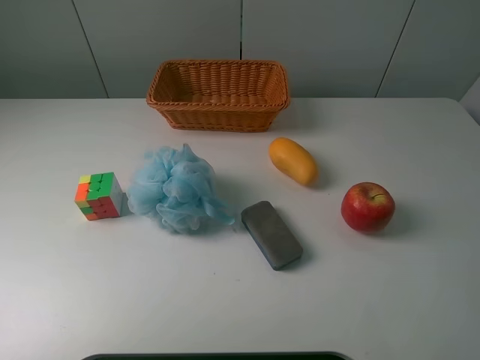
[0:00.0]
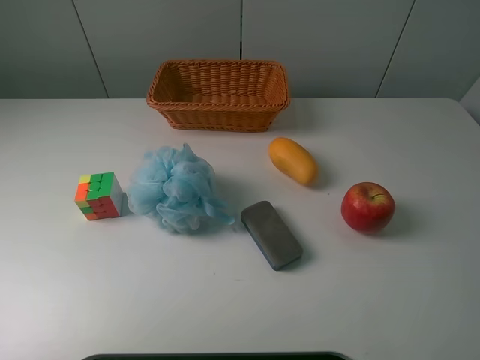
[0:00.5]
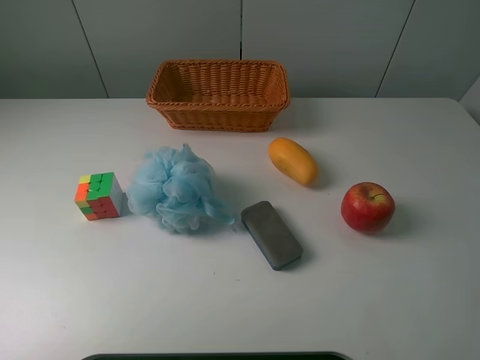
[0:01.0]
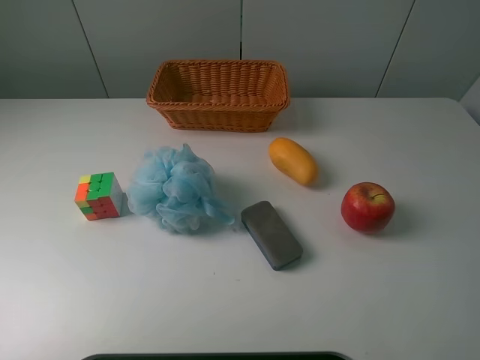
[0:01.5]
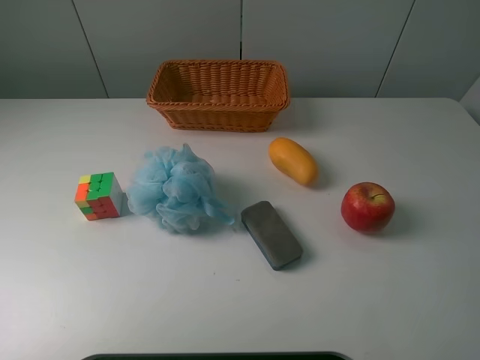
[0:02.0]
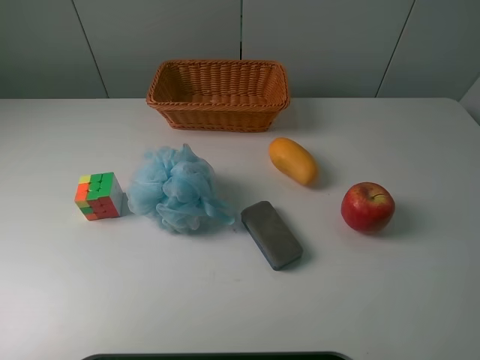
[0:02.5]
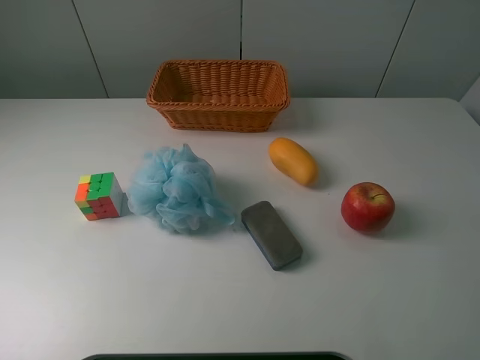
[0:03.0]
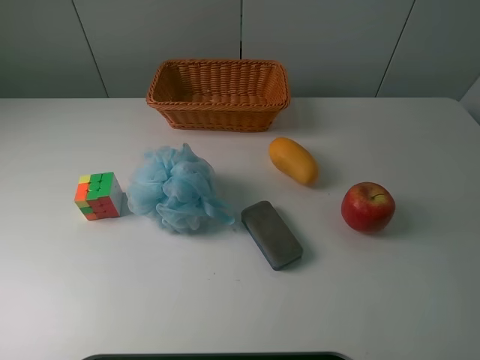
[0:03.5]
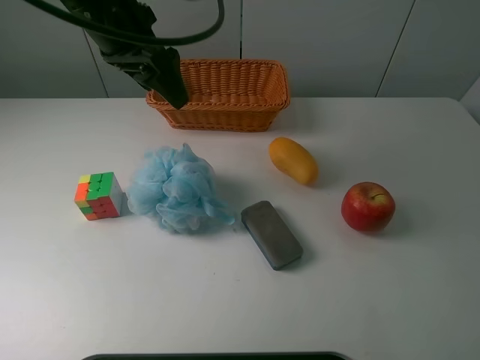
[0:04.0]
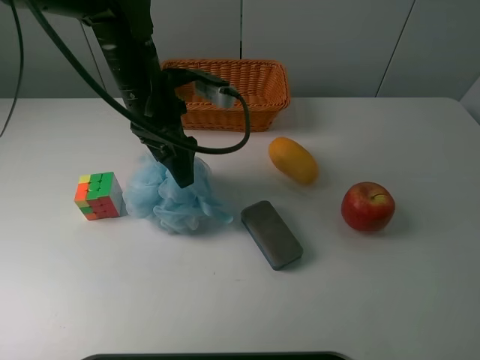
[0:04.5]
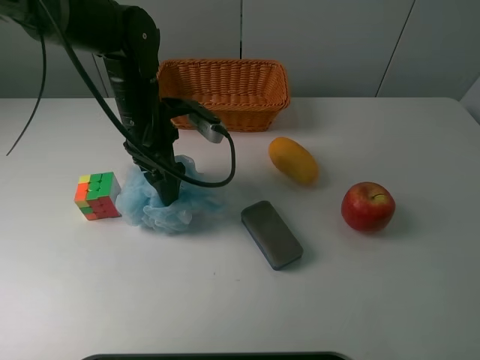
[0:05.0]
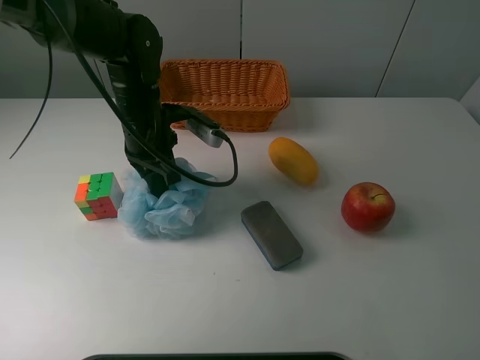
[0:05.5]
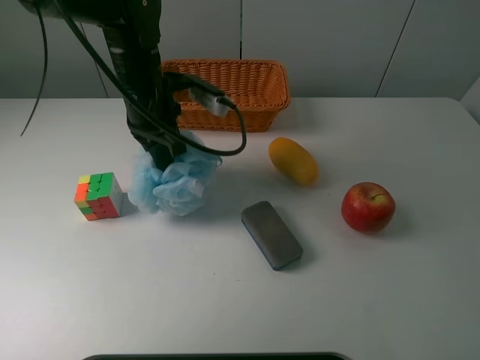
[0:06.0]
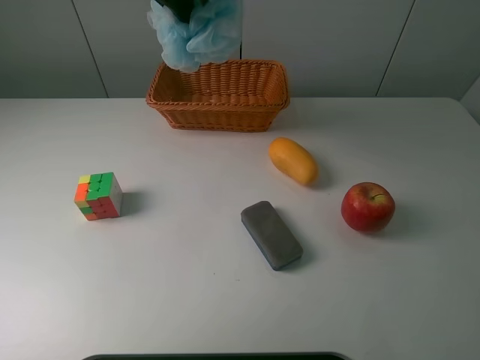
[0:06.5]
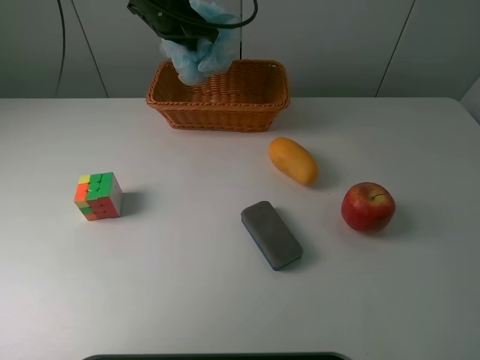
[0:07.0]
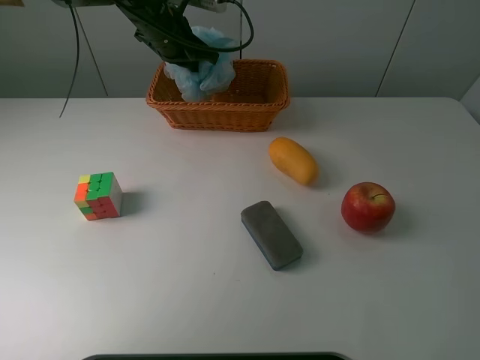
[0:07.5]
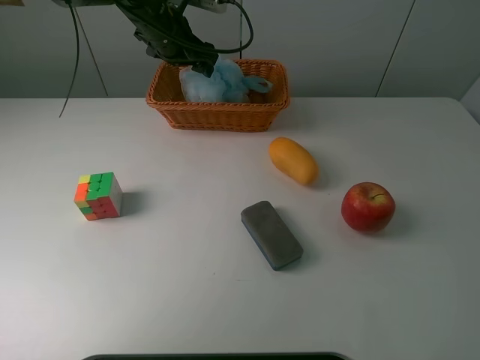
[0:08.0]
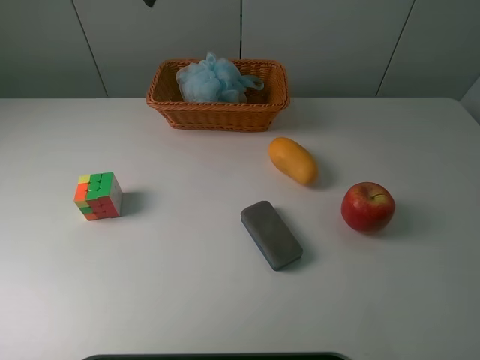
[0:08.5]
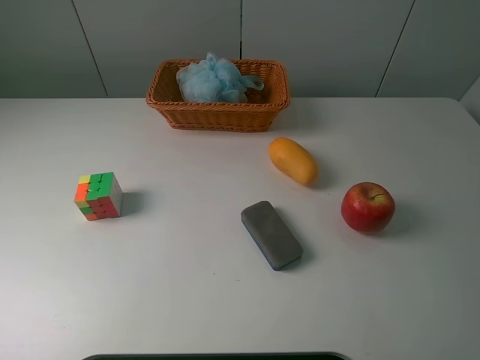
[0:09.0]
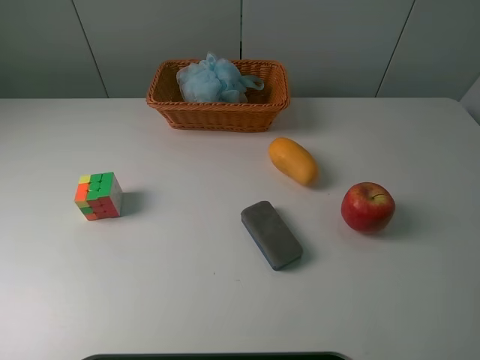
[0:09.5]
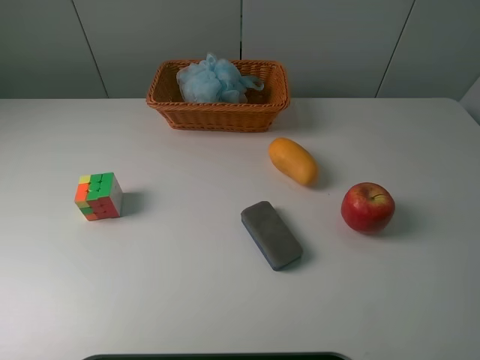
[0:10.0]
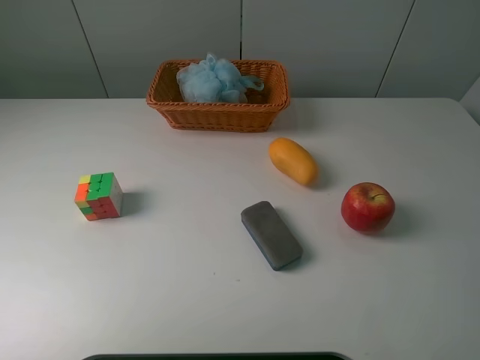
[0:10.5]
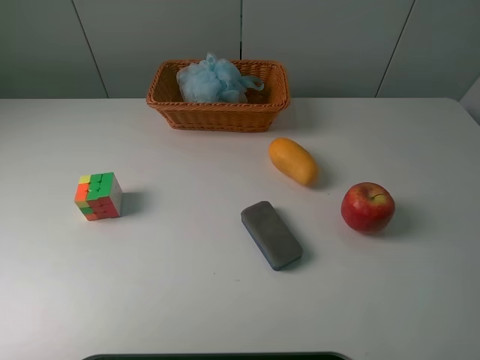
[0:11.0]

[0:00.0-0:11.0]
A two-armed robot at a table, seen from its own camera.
Task of the whole recording: use a picker to grab the item closest to the cube and place it in the basket.
Step, 0:00.0 to 0:05.0: Grasp the Shower puff with the left gripper.
Step, 0:05.5 to 0:08.0: Place the Shower puff into the basket with the left gripper.
0:00.0 to 0:02.0: Both grippers stay put.
0:03.5 to 0:05.5: The left gripper moves downward and to the right, about 25 cm, and closes.
0:05.5 to 0:07.5: The left gripper moves forward, some 15 cm, and travels upward and back again, some 20 cm each way.
0:07.5 to 0:09.0: The left gripper heads upward, backward and to the left, covering approximately 40 cm, and opens up.

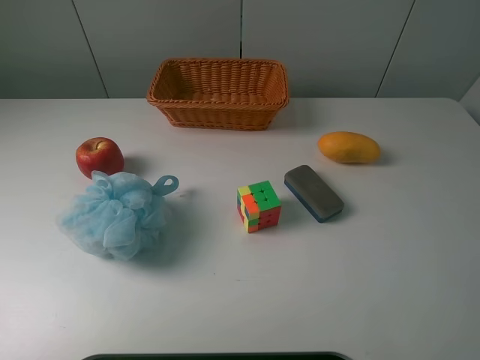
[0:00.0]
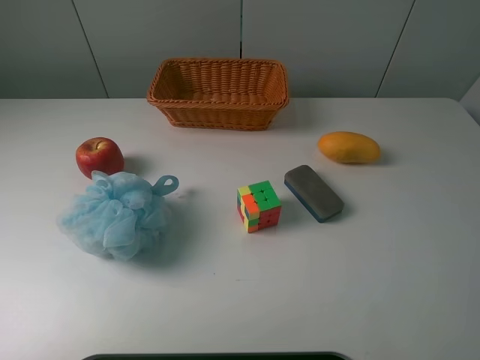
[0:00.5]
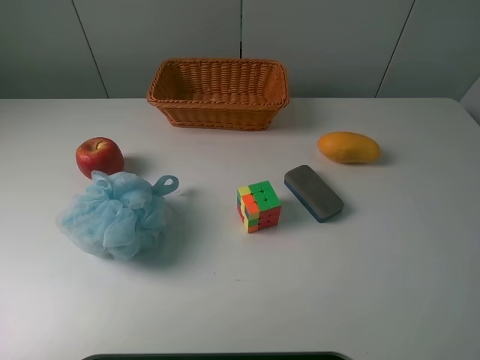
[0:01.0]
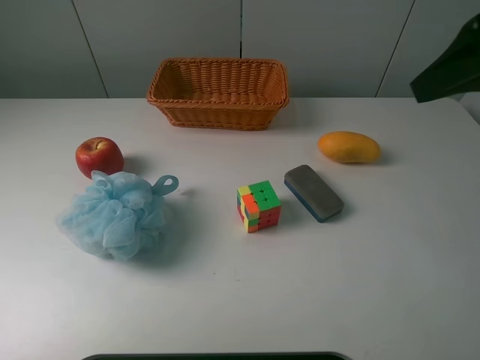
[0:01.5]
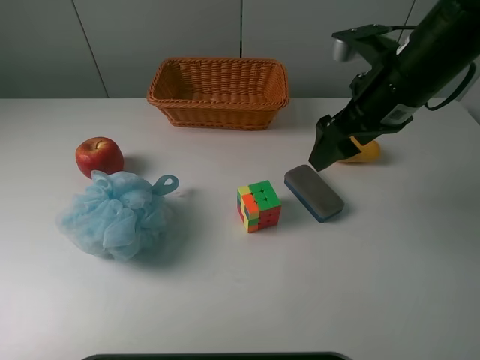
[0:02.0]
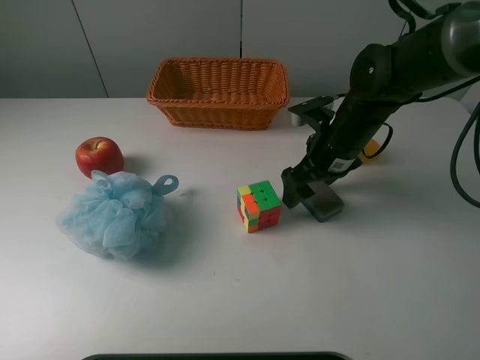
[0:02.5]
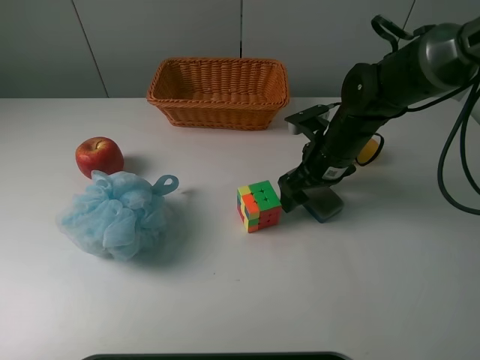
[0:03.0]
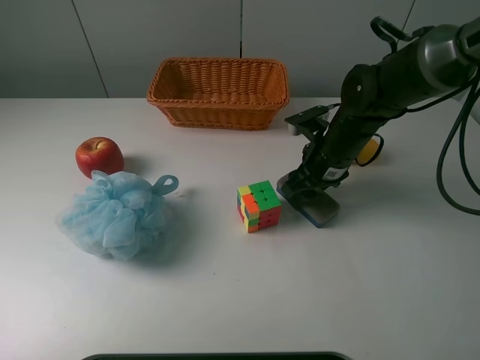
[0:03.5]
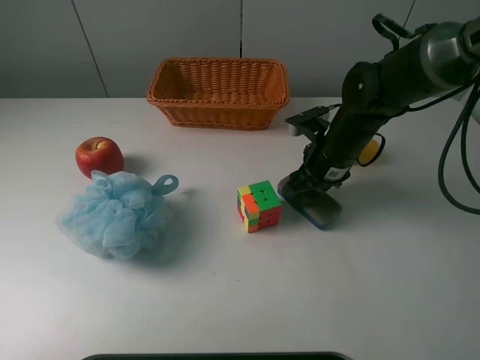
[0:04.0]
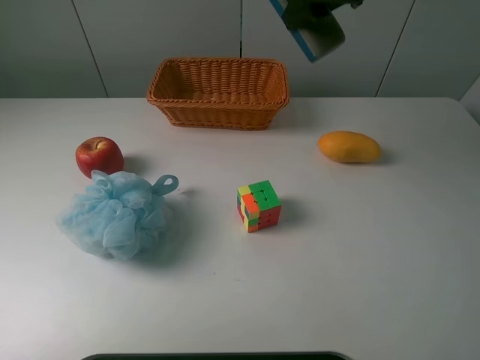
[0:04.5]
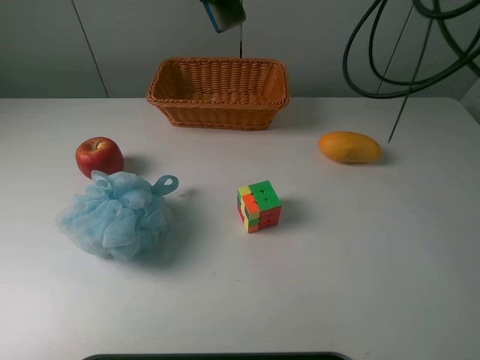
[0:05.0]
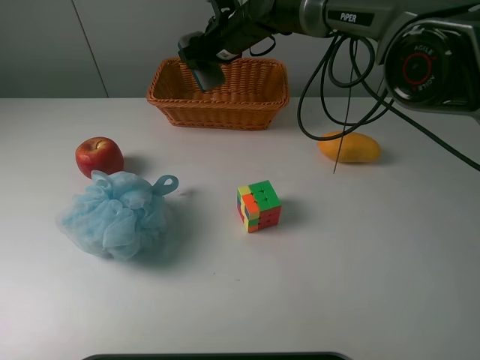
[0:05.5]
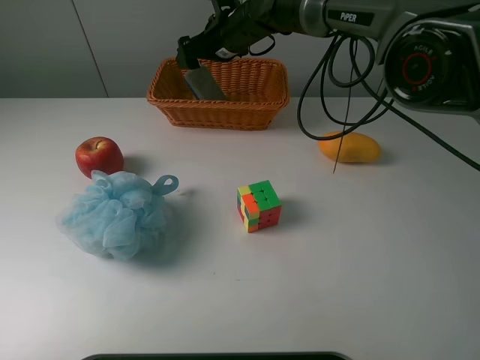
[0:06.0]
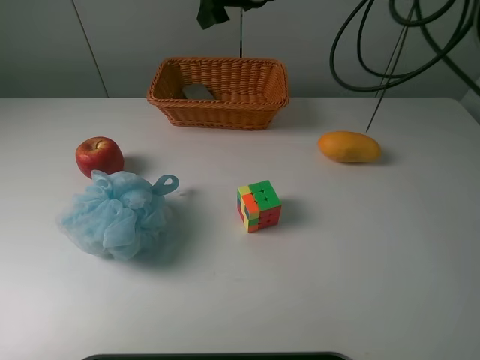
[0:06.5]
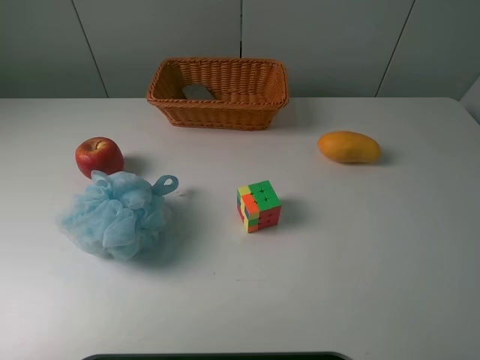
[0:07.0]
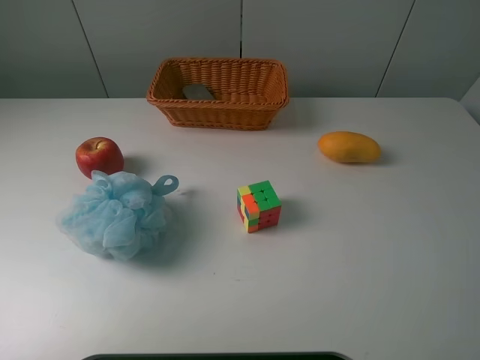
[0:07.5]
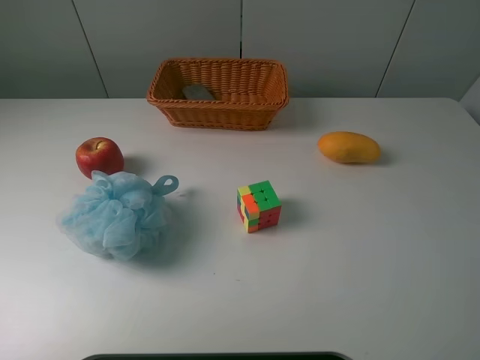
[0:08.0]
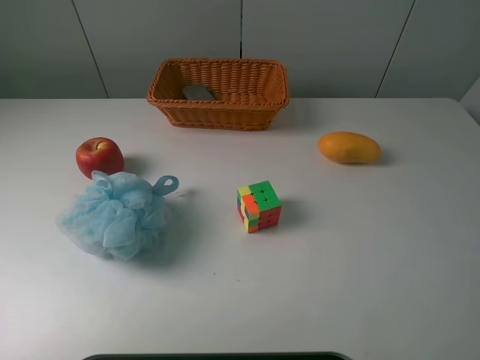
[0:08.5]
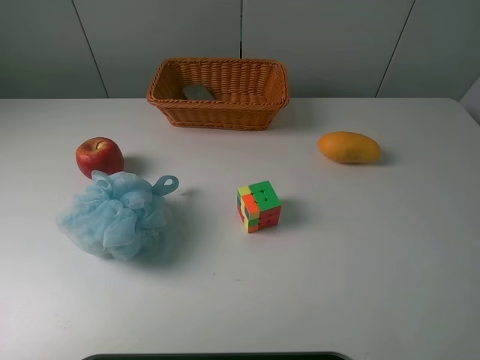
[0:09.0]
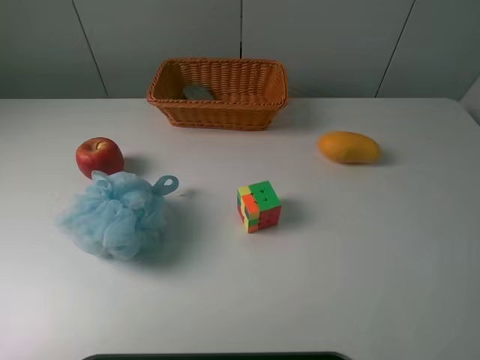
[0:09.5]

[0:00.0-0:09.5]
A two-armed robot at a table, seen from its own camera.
Task of the whole recording: use a picker to grab the item closest to the cube and place it in the basket.
Step, 0:00.0 to 0:03.5: Grasp the blackboard erasure with the right gripper.
Step, 0:04.0 to 0:06.0: Place the blackboard erasure into the basket with the right gripper.
0:00.0 to 0:02.0: The right gripper moves forward and to the left, some 30 cm.
0:02.0 to 0:04.0: The right gripper heads downward, covering some 10 cm, and closes its fingers.
0:04.0 to 0:05.5: The right gripper is displaced forward and to the left by roughly 25 cm, and reaches roughly 25 cm upward, then returns.
0:05.5 to 0:07.5: The right gripper is displaced upward, backward and to the right by about 60 cm, and opens.
